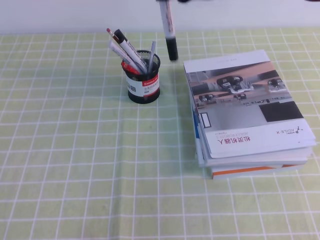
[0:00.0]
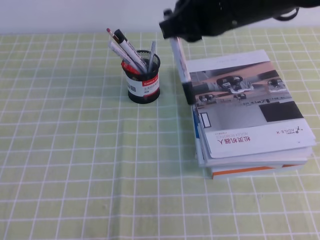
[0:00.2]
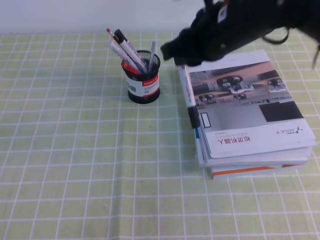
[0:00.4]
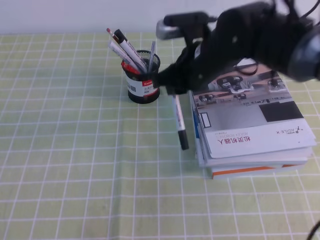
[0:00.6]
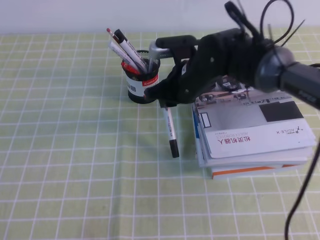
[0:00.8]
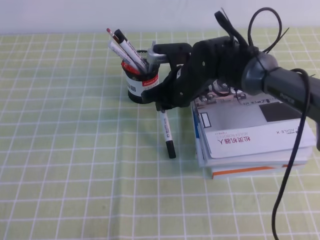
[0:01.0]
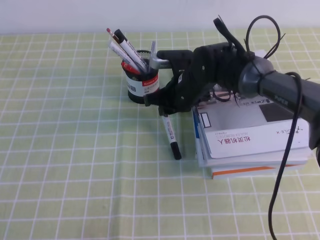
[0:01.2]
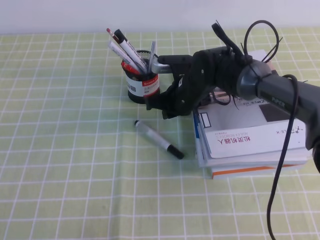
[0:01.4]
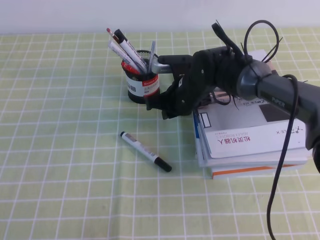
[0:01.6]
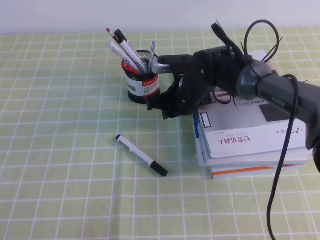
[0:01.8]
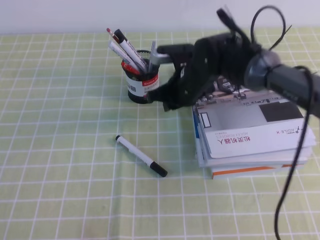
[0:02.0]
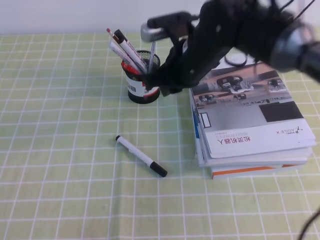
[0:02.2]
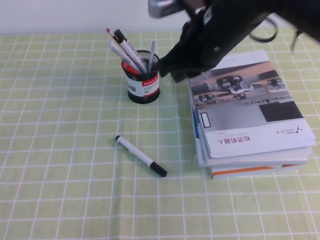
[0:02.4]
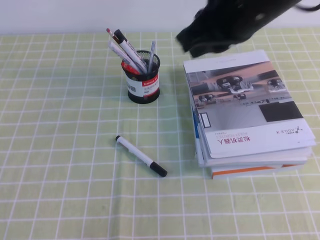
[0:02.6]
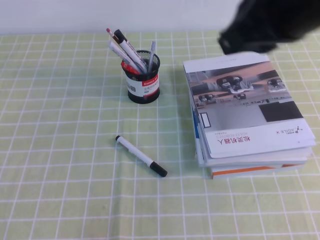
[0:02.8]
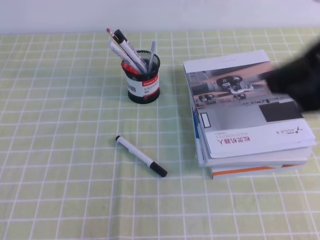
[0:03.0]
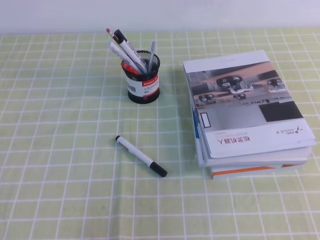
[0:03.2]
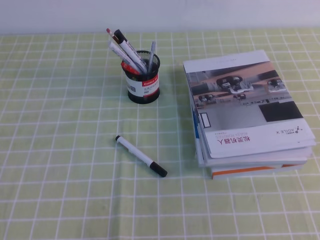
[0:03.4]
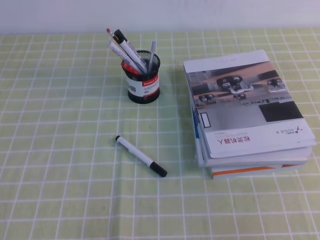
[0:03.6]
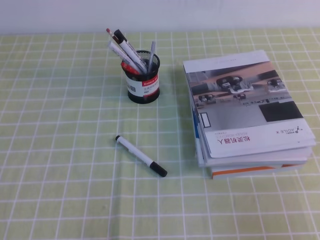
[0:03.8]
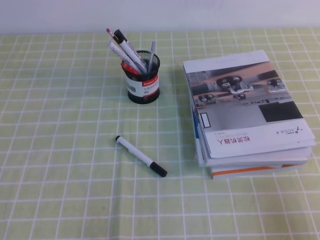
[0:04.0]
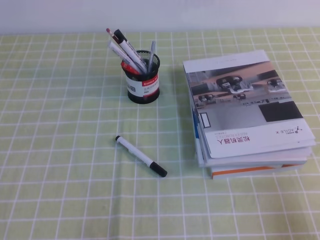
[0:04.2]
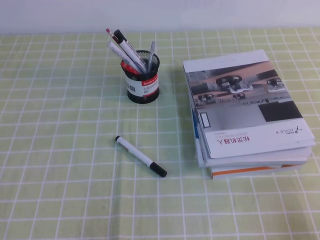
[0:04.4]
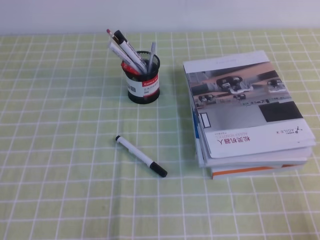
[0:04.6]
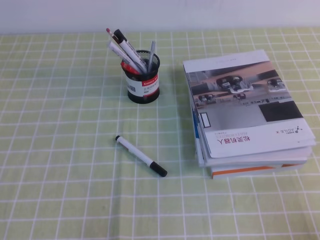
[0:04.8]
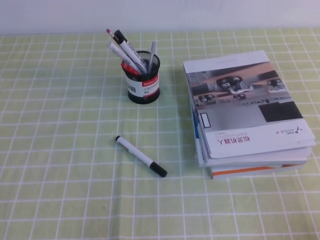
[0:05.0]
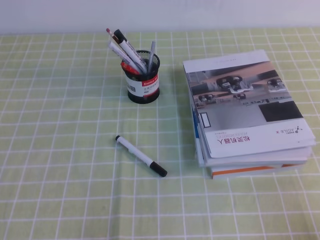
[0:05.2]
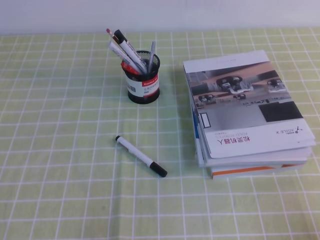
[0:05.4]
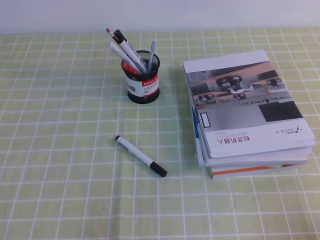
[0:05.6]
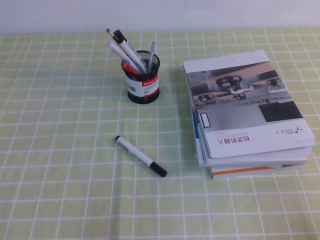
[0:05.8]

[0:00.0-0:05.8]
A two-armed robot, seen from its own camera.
Step, 0:00.0 to 0:05.8: Pick up the pen from the pen holder.
0:00.0 to 0:01.4: The right gripper is displaced downward by about 25 cm.
0:01.4 to 0:02.8: The right gripper is displaced upward, backward and to the right by roughly 35 cm.
0:02.8 to 0:04.4: The right gripper heads downward, to the right and backward, covering approximately 35 cm.
